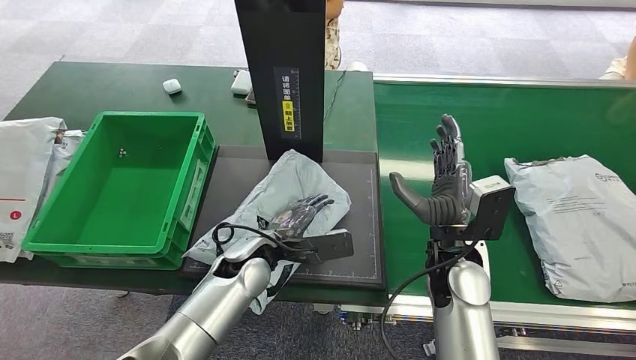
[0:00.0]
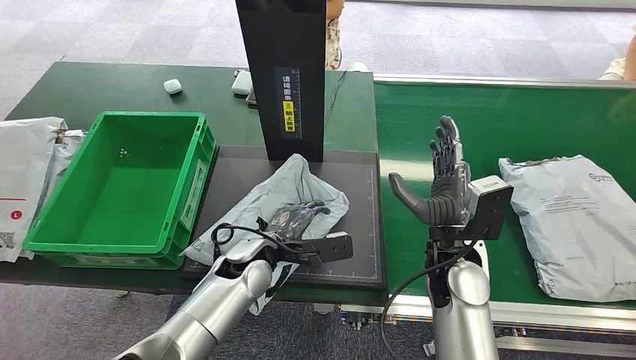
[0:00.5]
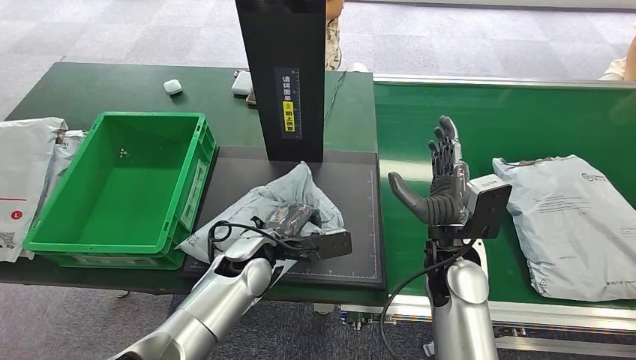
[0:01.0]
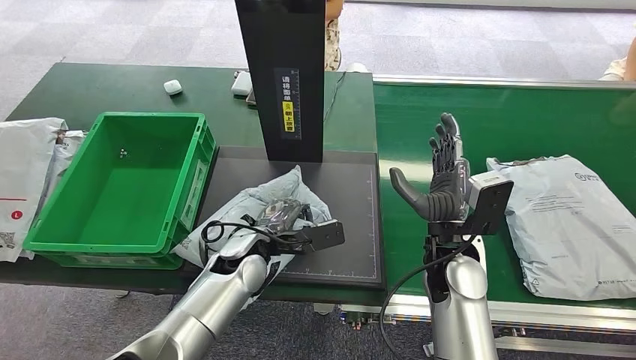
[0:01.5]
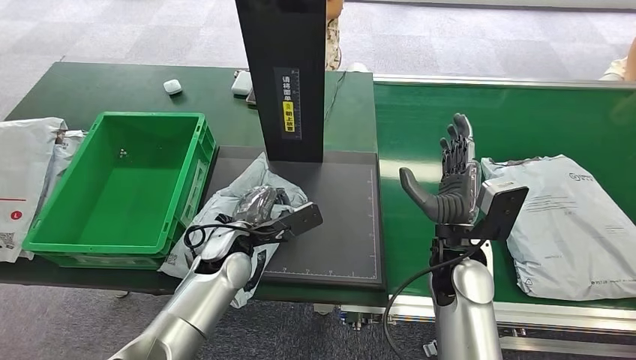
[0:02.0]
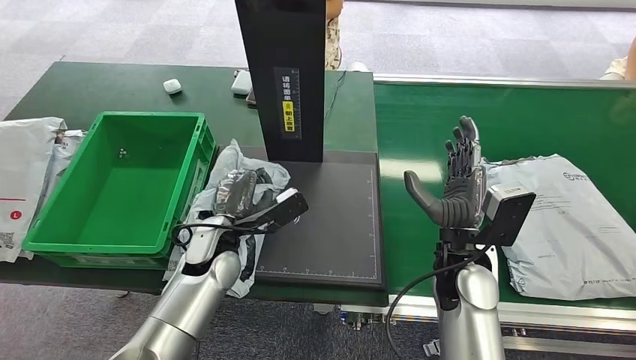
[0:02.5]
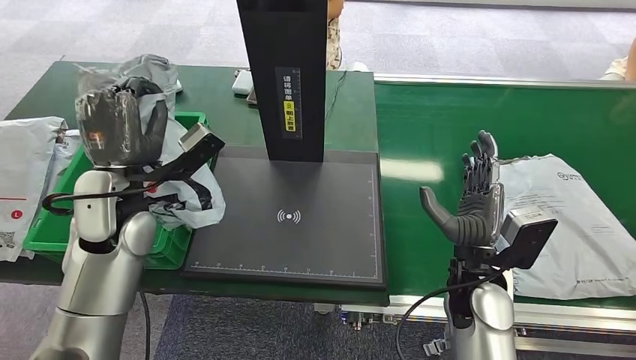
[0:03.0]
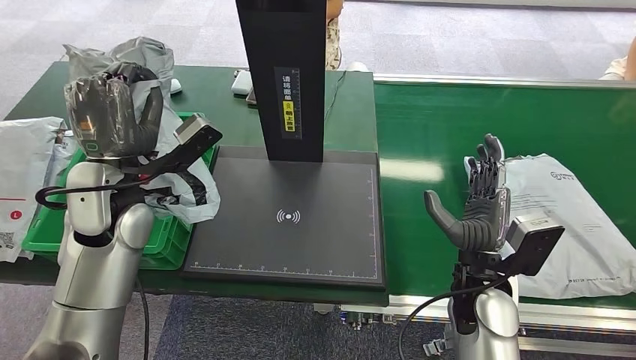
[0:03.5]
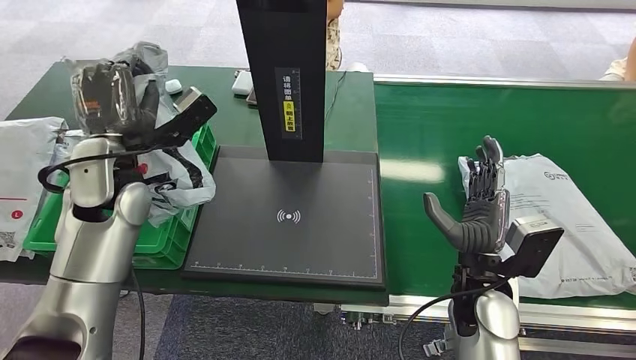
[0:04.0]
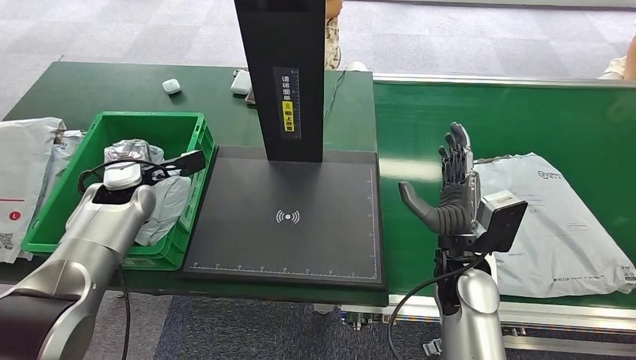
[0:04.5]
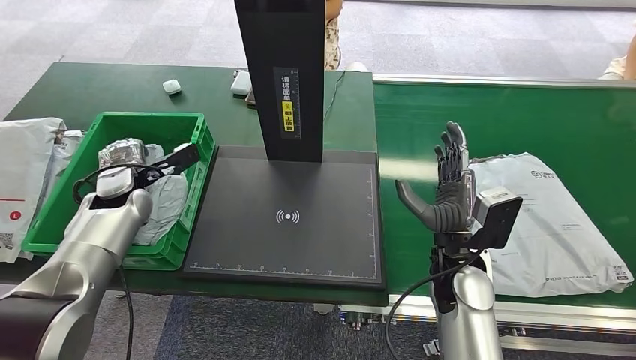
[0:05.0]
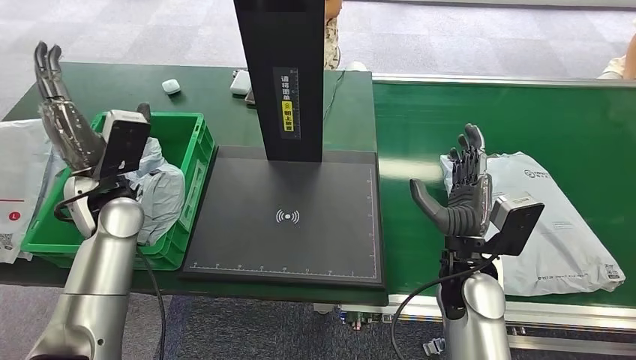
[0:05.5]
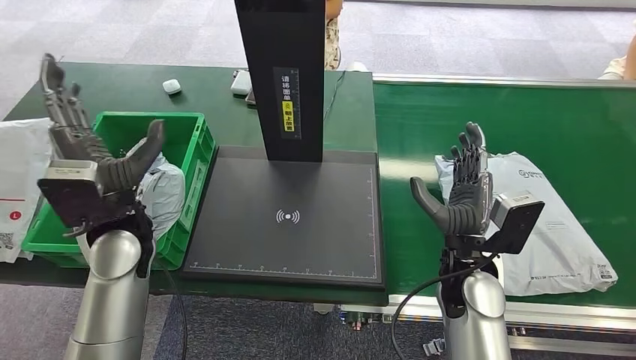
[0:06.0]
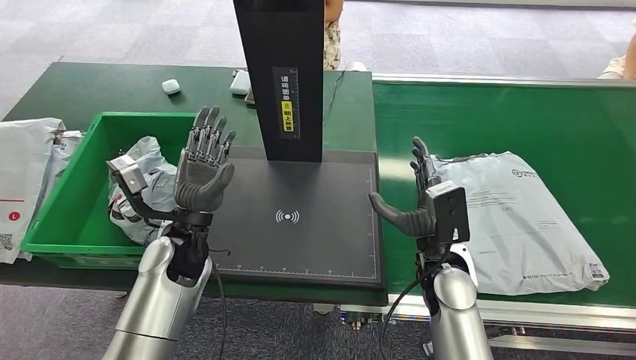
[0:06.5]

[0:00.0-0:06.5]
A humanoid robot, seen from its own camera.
Step, 0:00.0 to 0:03.0: Pick up the package from the inbound machine.
Step, 0:03.5 to 0:06.5: Place the package into the parcel locker.
0:00.0 to 0:02.0: The hands move only a little.
